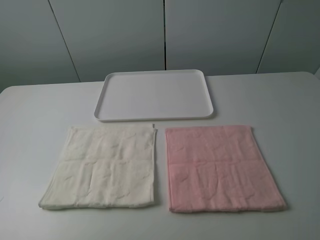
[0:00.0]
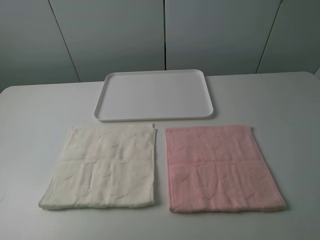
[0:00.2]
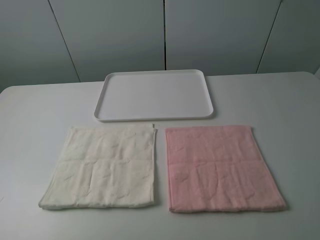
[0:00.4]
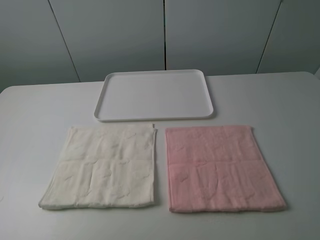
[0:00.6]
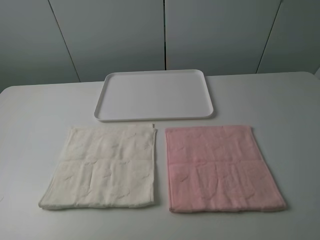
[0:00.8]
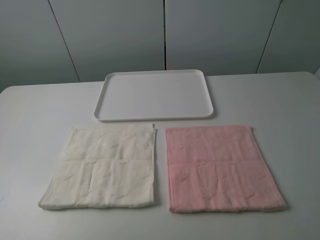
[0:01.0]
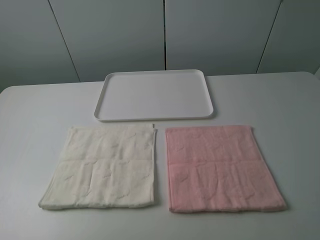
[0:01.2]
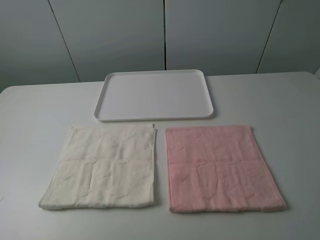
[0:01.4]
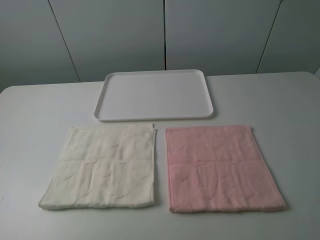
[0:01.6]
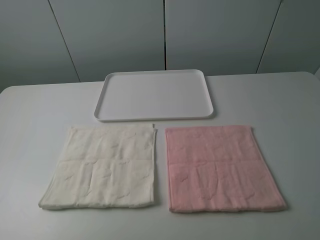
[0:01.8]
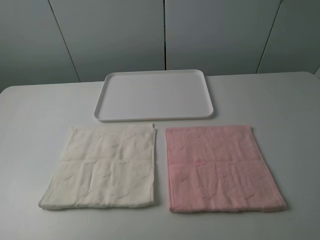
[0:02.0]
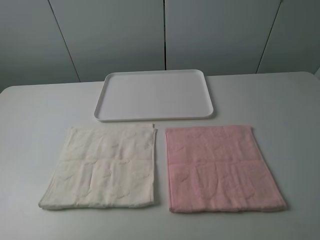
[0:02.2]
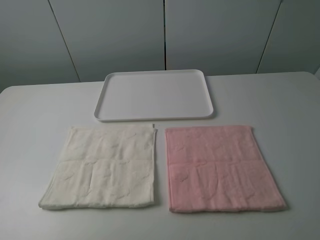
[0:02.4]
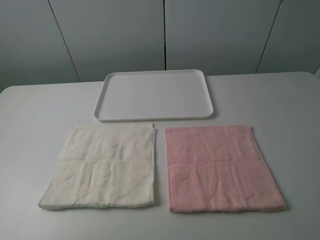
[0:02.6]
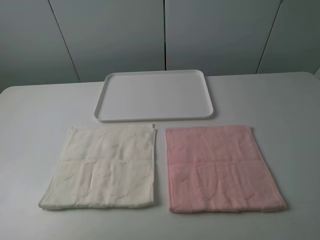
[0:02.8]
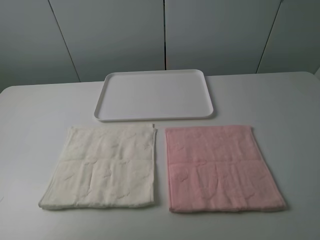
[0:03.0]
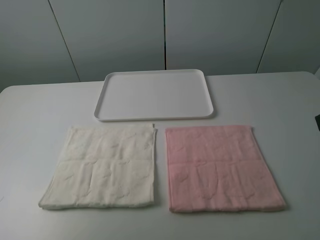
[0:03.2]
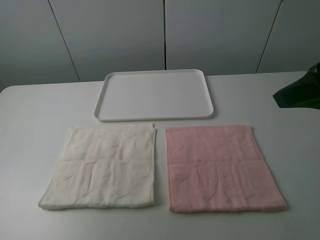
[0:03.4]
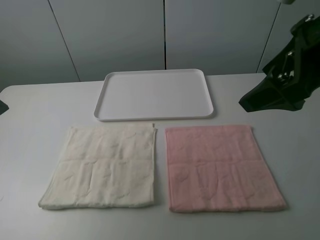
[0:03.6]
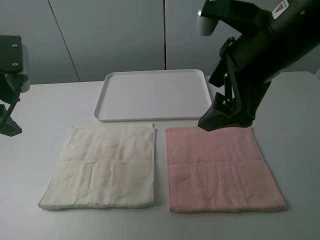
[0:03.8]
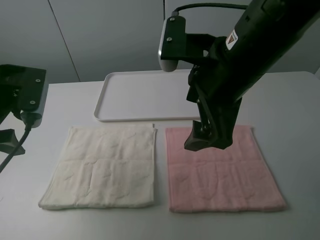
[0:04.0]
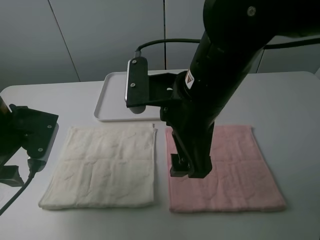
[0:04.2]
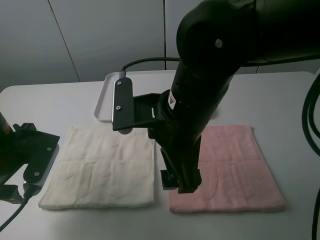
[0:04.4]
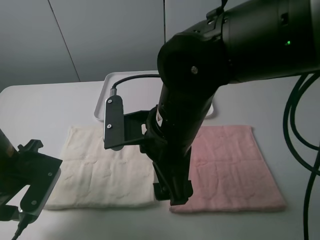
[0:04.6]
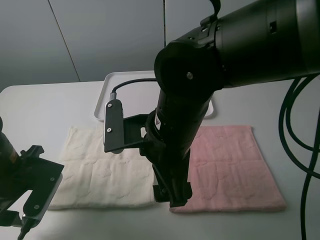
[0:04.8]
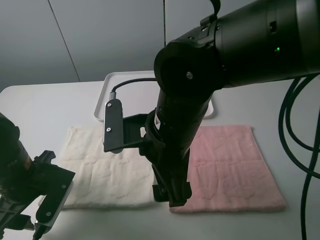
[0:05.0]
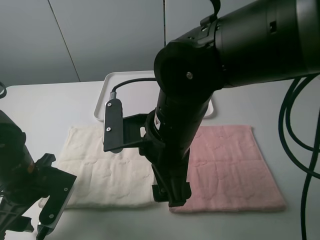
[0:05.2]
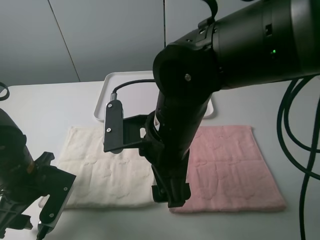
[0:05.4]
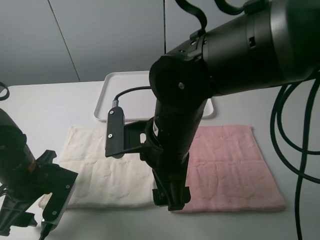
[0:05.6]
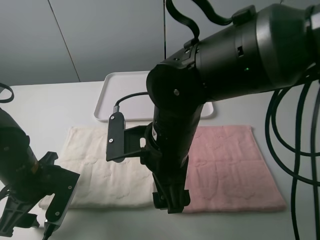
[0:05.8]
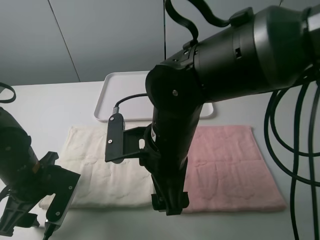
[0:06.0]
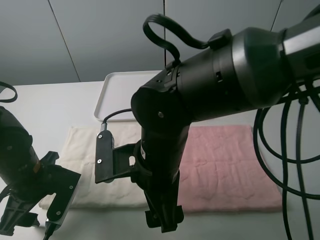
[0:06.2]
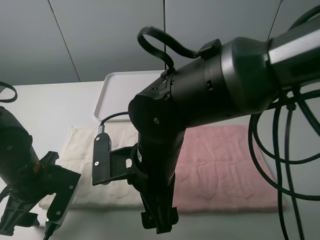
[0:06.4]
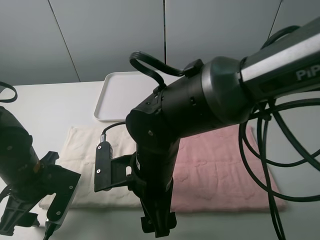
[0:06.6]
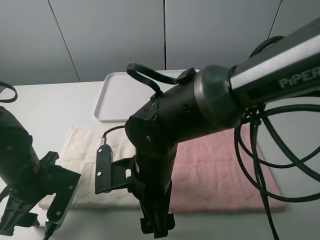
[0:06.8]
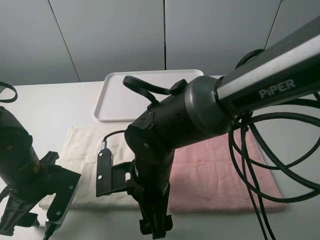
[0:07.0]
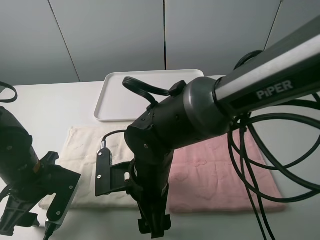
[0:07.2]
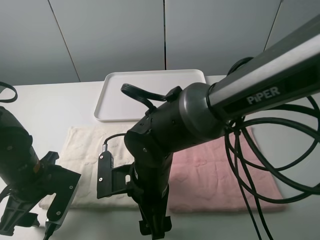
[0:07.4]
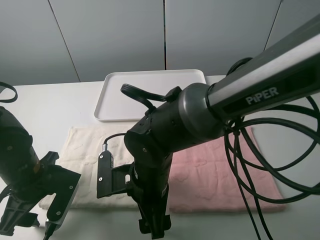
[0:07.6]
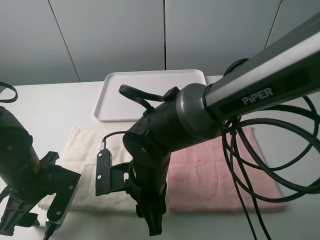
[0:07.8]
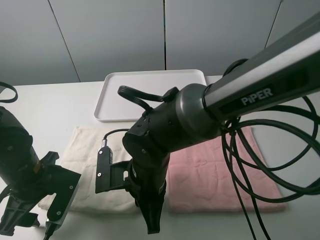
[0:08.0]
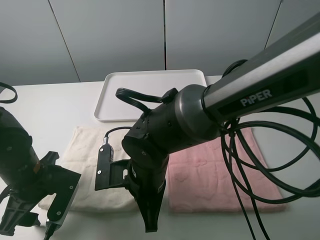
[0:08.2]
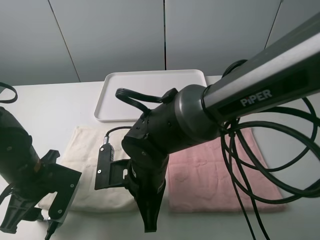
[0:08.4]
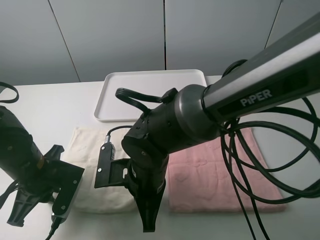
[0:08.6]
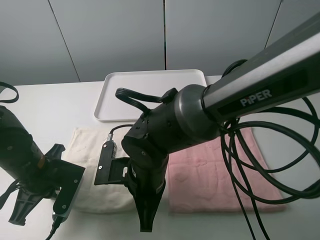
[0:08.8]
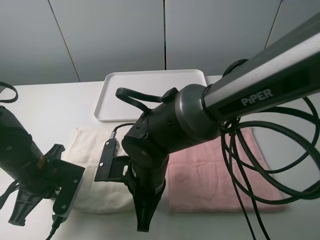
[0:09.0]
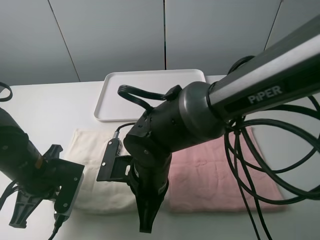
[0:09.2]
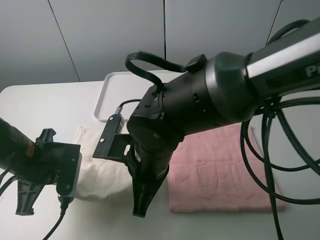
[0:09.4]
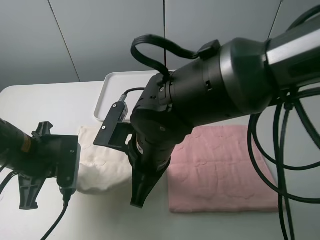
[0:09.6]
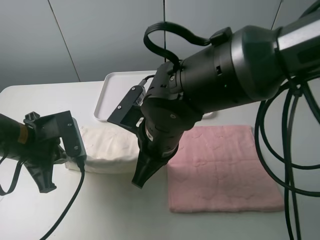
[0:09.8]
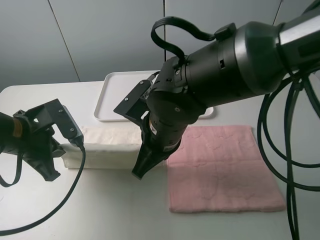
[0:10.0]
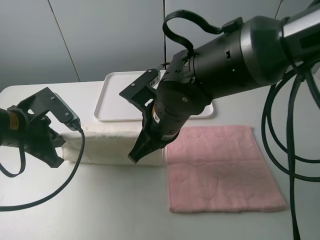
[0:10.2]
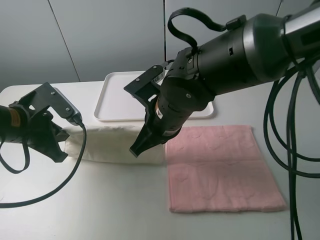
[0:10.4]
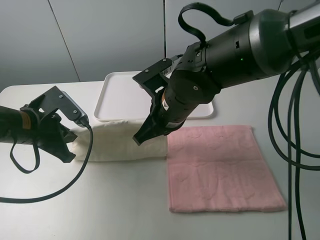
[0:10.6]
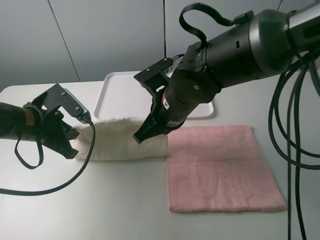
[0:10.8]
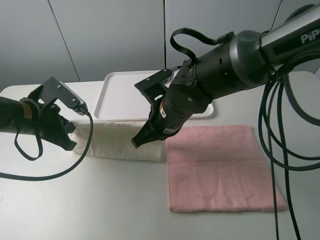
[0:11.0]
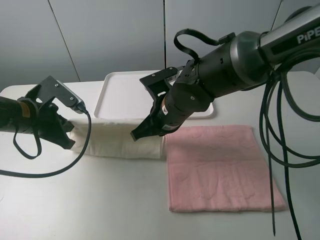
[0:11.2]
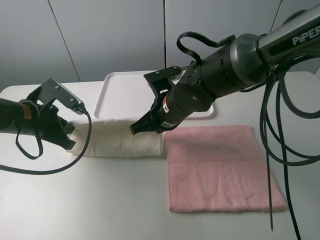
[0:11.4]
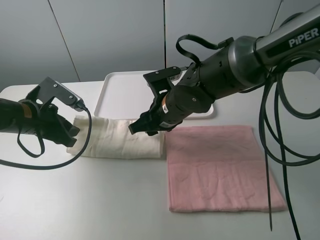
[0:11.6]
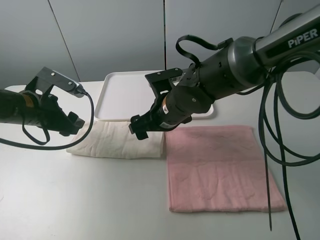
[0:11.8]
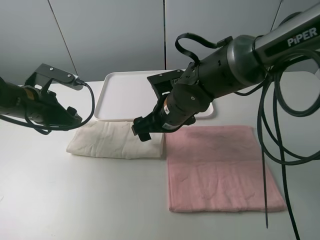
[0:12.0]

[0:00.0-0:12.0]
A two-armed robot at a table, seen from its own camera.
Task of the whole recording: fold one of the towels by two grippers and place it on the tray,then fold another towel by two grippers and place it on the folded towel.
Step, 0:00.0 to 0:08.6: Grasp the white towel with the left gripper.
Step, 0:09.0 to 0:11.8: Fold the white towel upwards with the left gripper.
0:00.0 to 0:01.6: Both grippers stay put.
0:03.0 to 0:04.4: The left gripper goes some 20 cm downward, forward and to the right, while the right gripper goes approximately 25 cm to the left and forward.
0:04.4 to 0:06.0: Both grippers move downward, some 5 cm.
0:06.0 to 0:07.6: The right gripper travels downward by about 10 cm.
0:07.6 to 0:09.0: The left gripper closes its fingers. Meanwhile the right gripper closes its fingers.
0:09.0 to 0:10.4: The right gripper is displaced upward and forward by some 10 cm. The left gripper shifts some 5 cm upward.
0:10.4 to 0:12.0: The left gripper is displaced forward by about 5 cm, and opens its fingers; the right gripper ends up approximately 5 cm from where it was, and opens its fingers.

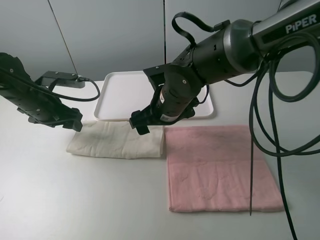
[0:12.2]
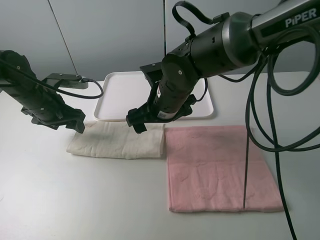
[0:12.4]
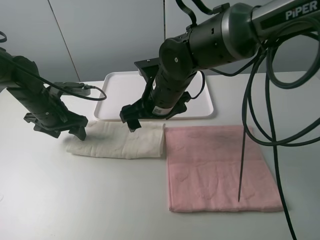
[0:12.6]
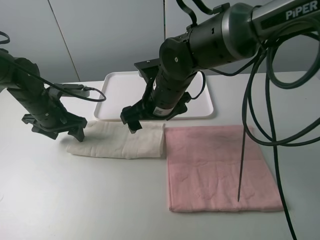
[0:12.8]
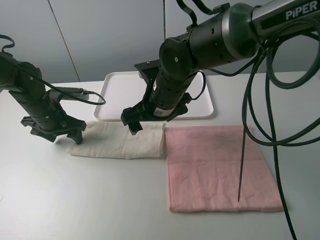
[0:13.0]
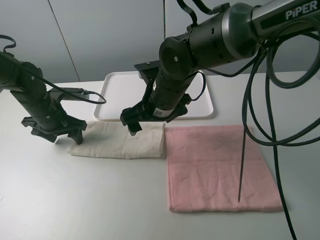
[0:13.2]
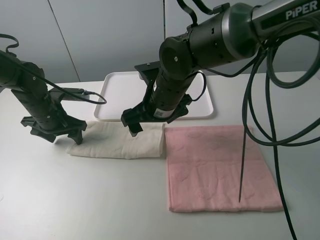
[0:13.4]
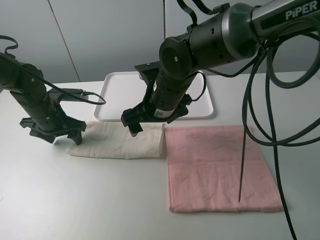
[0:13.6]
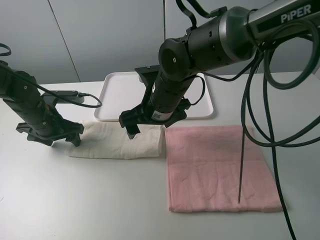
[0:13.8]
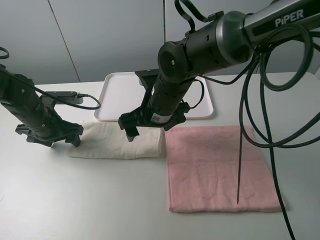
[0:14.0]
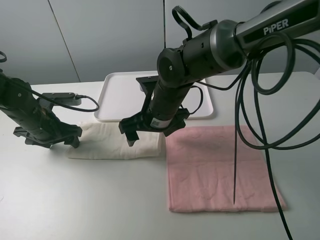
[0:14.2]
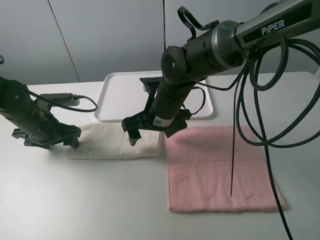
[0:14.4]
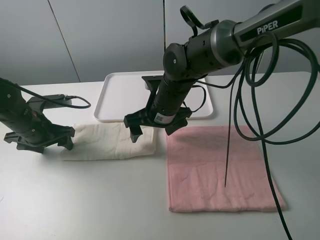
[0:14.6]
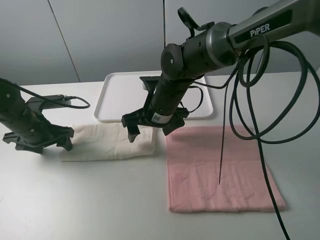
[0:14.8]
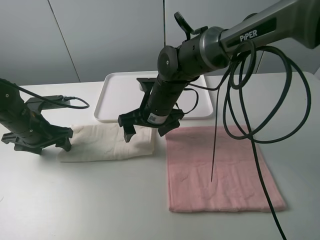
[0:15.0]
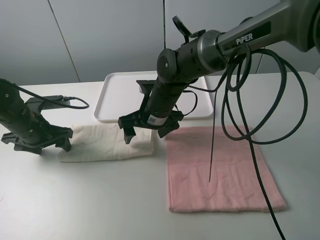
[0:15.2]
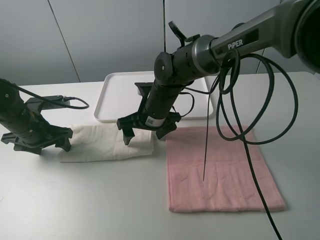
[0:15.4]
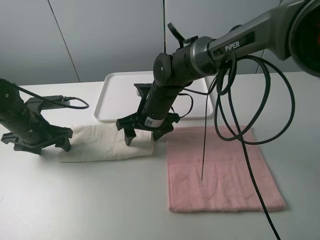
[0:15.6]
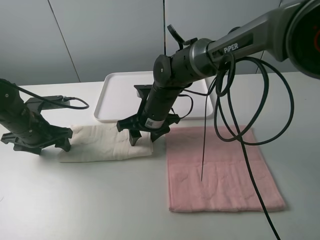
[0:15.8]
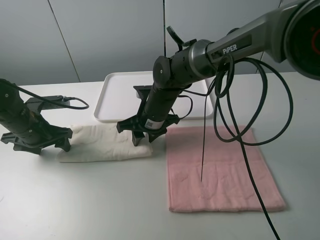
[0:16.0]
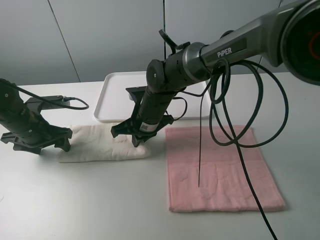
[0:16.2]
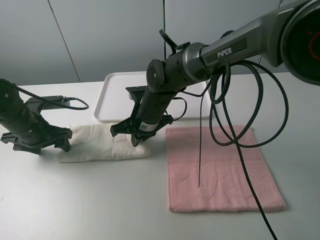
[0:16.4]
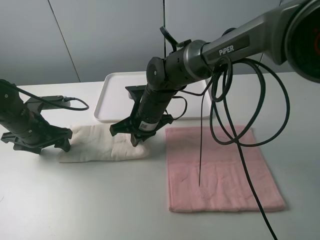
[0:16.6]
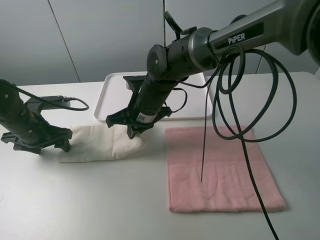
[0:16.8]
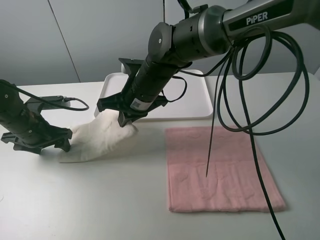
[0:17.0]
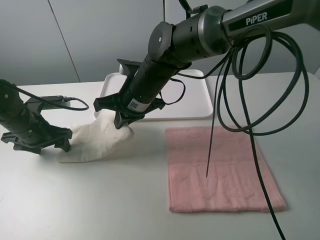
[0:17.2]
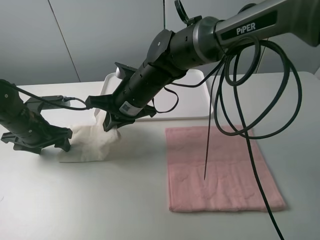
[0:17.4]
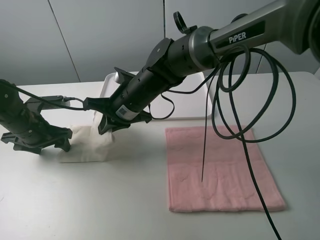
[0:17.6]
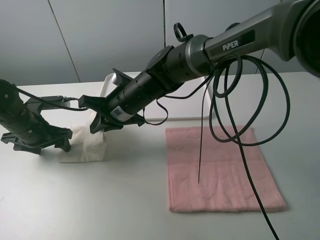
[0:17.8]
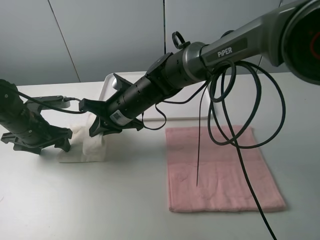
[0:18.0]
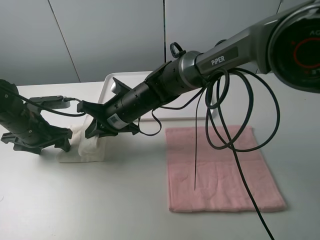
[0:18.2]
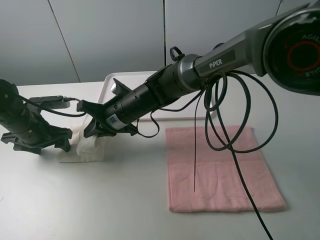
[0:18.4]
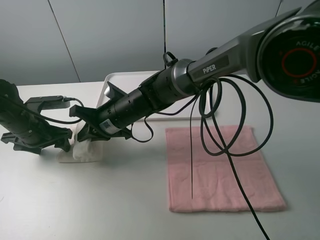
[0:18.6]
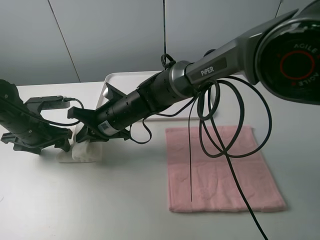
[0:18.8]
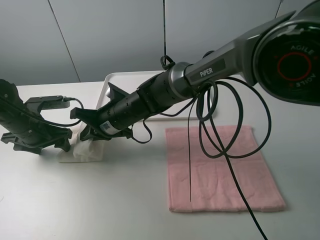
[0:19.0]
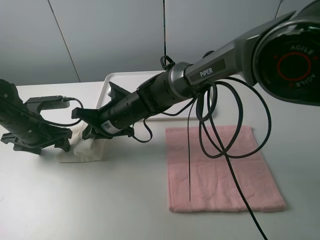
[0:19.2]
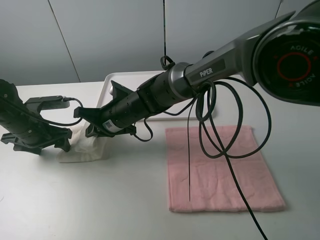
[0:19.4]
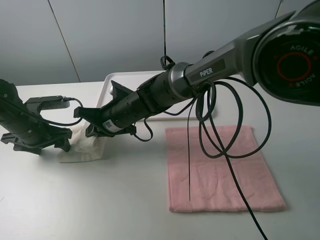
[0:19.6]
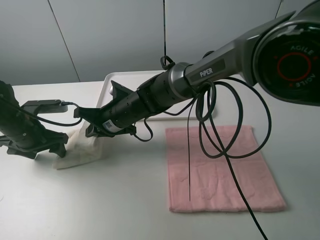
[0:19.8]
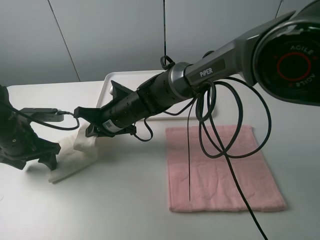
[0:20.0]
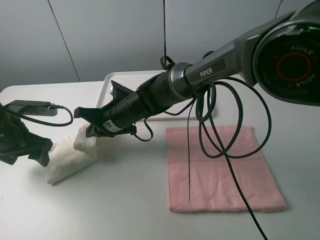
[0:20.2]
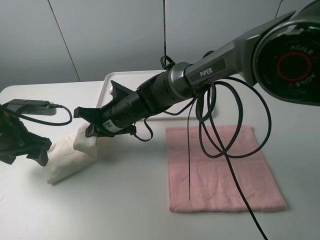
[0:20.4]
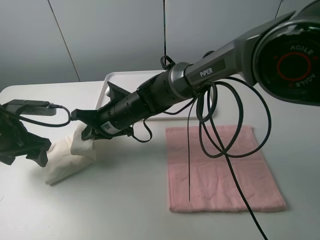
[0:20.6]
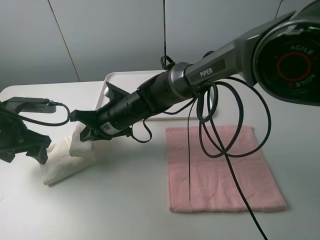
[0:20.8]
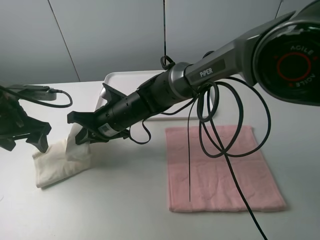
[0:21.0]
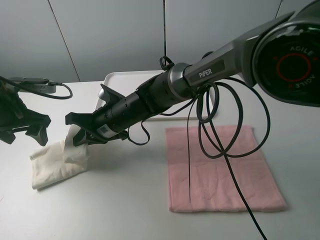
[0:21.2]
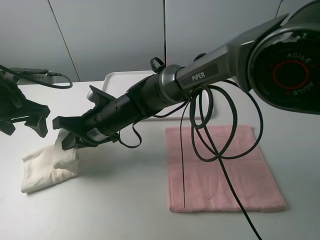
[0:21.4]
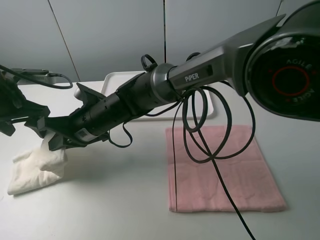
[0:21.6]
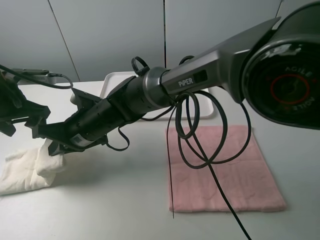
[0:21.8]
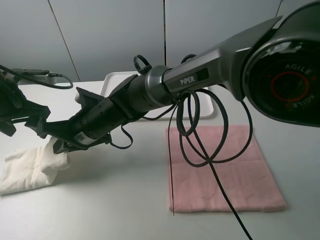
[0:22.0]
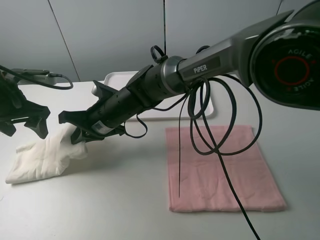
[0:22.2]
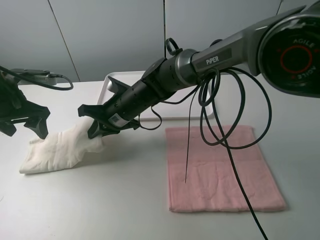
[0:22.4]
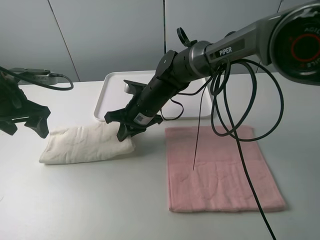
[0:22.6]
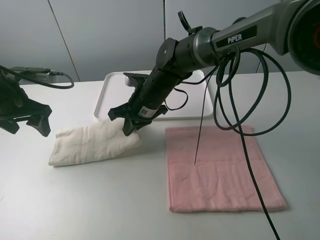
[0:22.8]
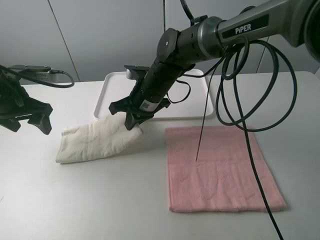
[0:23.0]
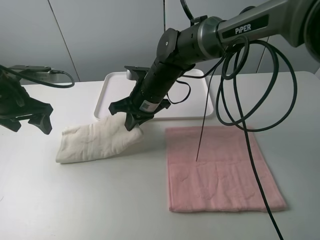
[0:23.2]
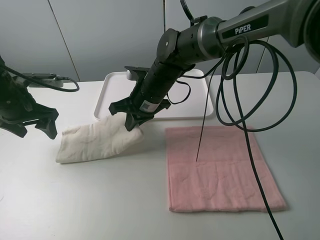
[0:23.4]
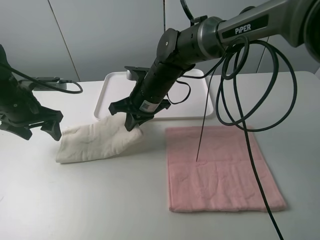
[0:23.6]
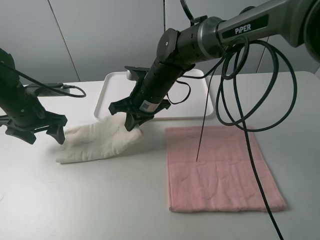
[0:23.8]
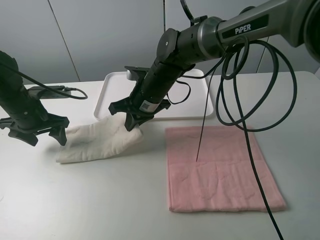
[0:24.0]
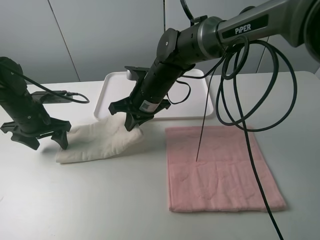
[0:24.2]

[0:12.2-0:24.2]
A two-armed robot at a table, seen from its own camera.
Task of the whole recording: fold one of the towels by two grippers and place it on the tray,then fold another towel by two grippers and place it on the folded towel.
Step, 0:12.2 to 0:13.2: Press the white towel with the left gripper.
Step, 0:13.4 to 0:16.4: Grasp the white towel with the right gripper.
0:12.2 to 0:13.8: The left gripper changes place by about 5 cm.
0:13.8 to 0:15.2: The right gripper moves roughly 5 cm.
0:15.2 to 0:16.6: The right gripper closes up.
0:18.2 to 0:19.8: There are only small adjustments of the grippers.
0:19.8 to 0:21.2: The left gripper heads upward, covering roughly 10 cm.
0:21.2 to 0:22.6: The right gripper goes approximately 5 cm to the right.
0:22.6 to 0:24.2: The left gripper goes some 10 cm downward.
